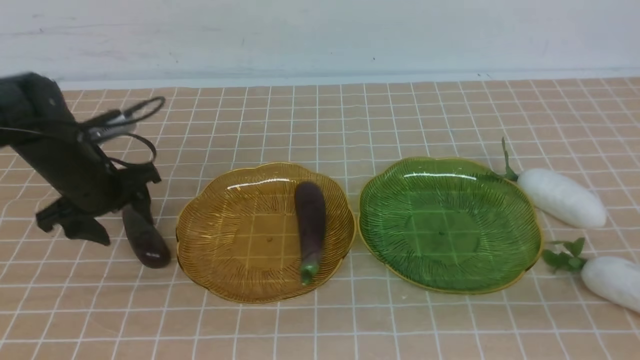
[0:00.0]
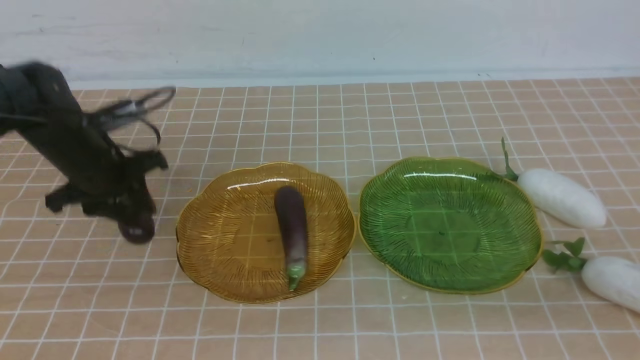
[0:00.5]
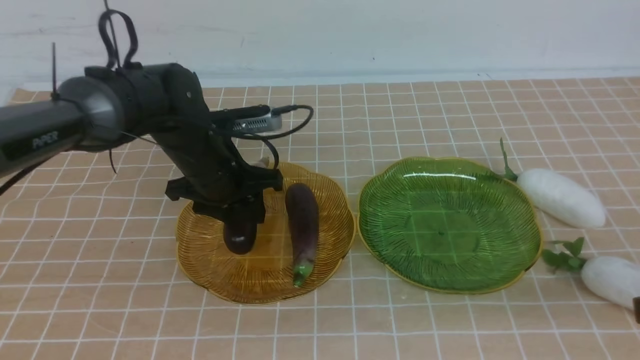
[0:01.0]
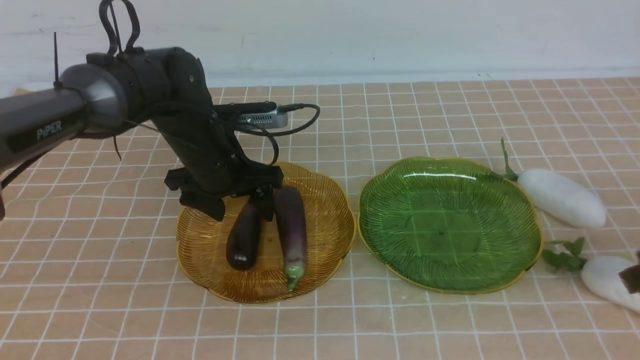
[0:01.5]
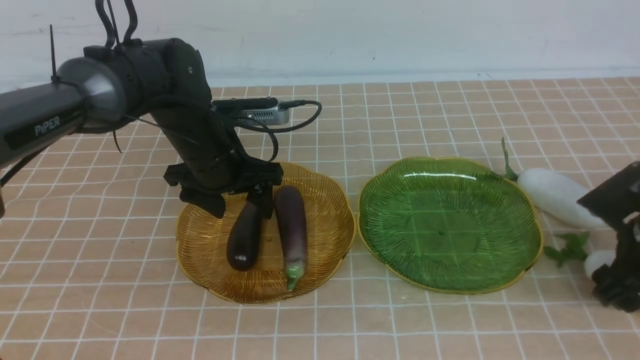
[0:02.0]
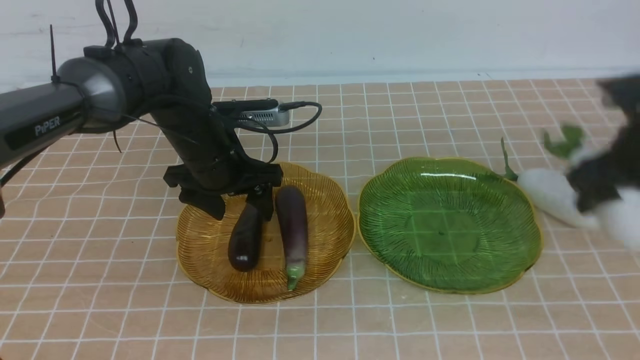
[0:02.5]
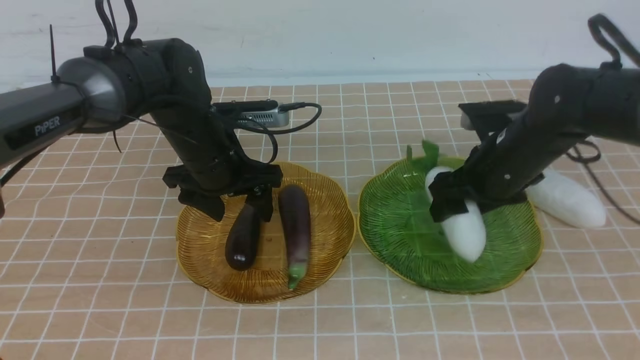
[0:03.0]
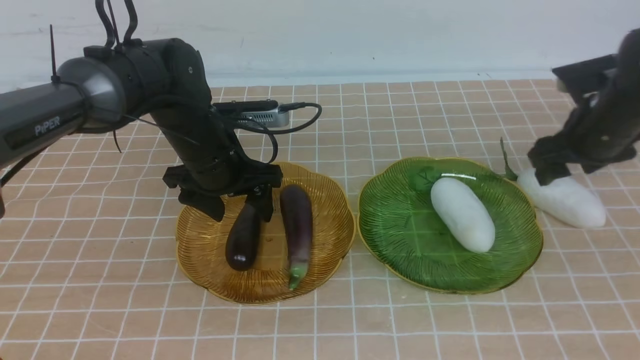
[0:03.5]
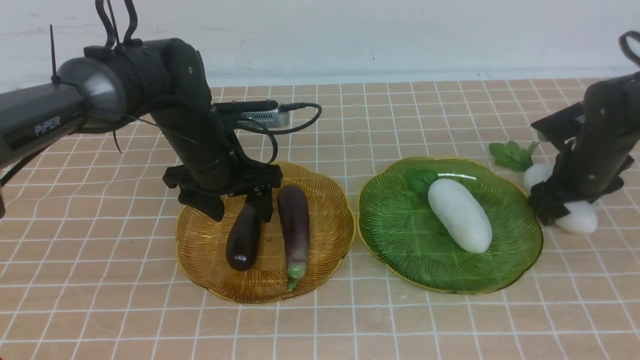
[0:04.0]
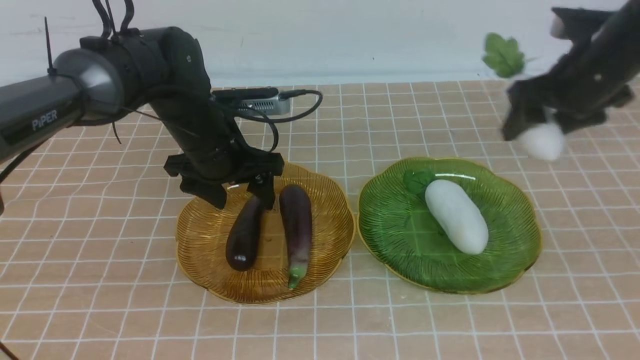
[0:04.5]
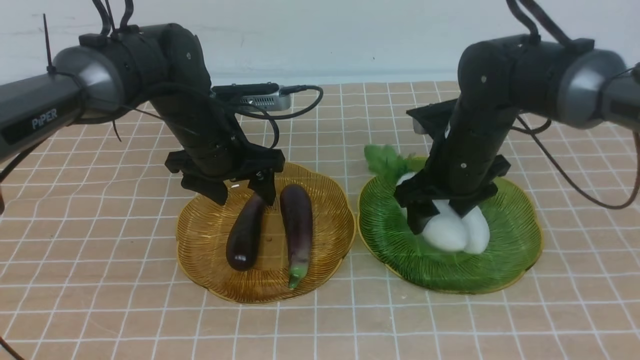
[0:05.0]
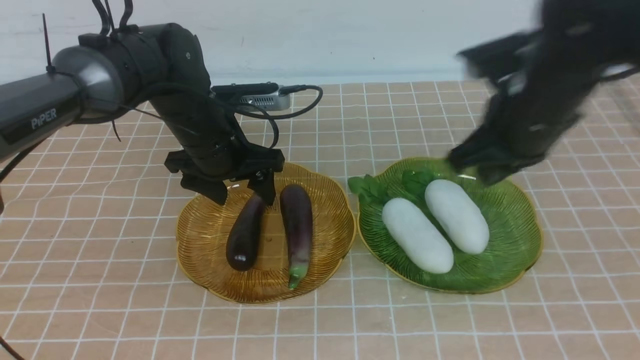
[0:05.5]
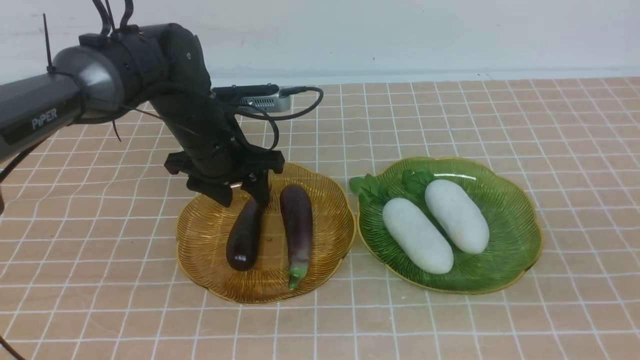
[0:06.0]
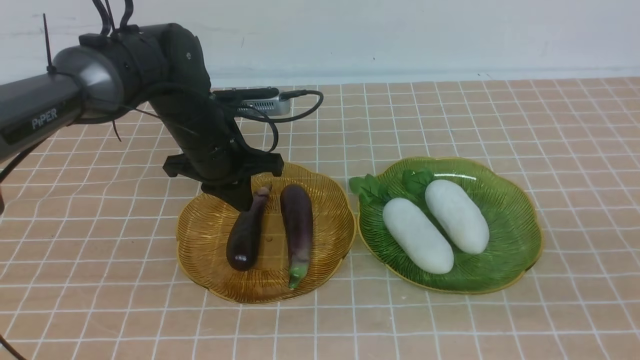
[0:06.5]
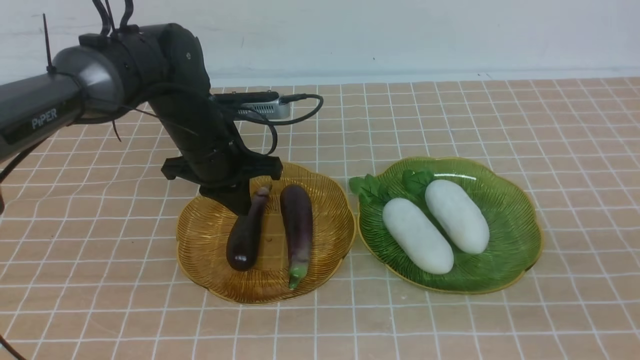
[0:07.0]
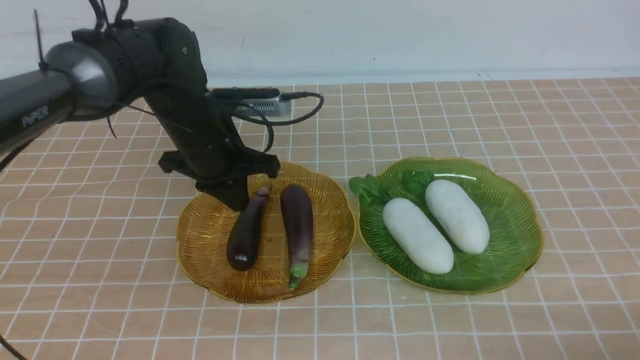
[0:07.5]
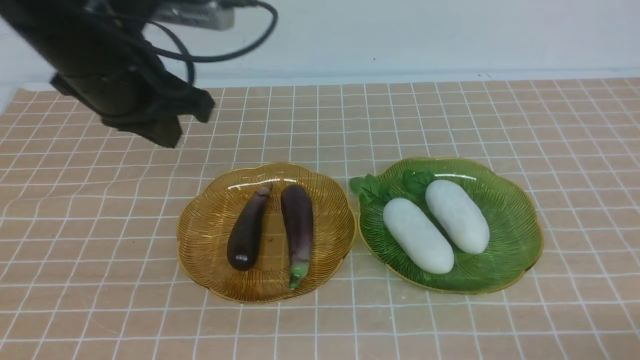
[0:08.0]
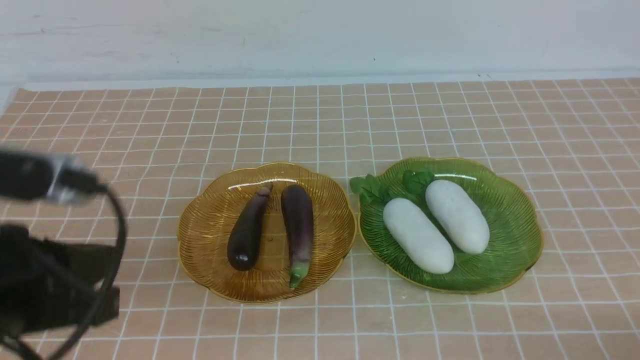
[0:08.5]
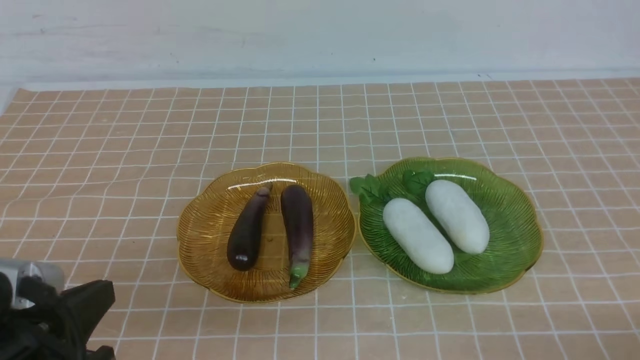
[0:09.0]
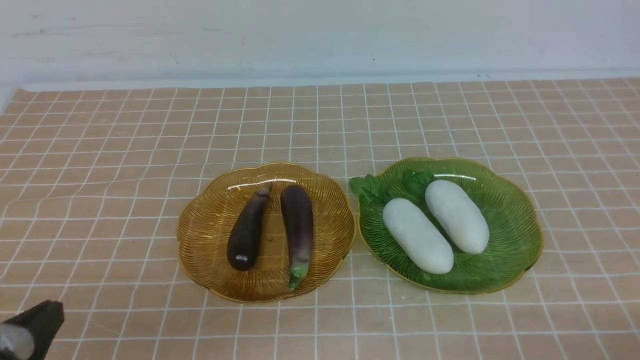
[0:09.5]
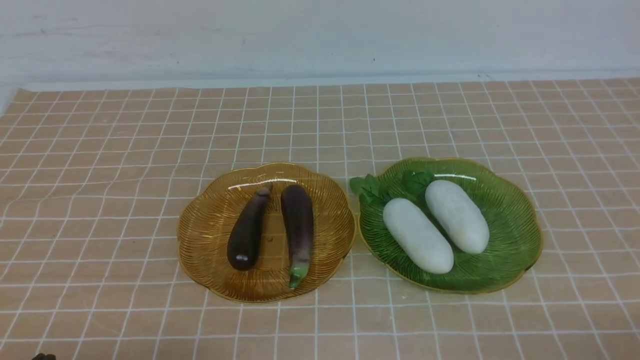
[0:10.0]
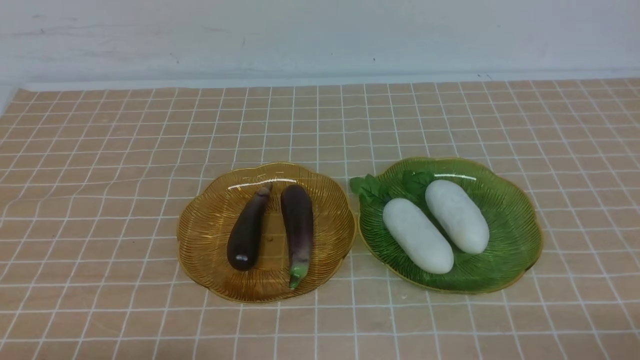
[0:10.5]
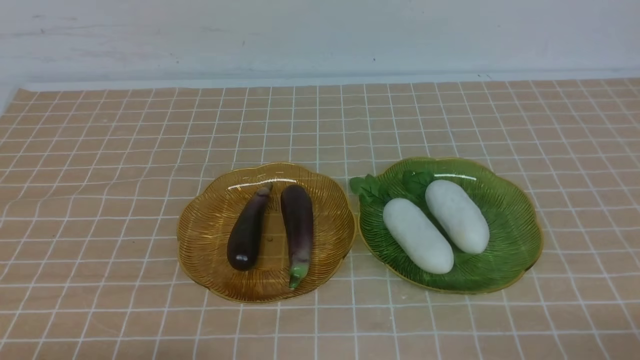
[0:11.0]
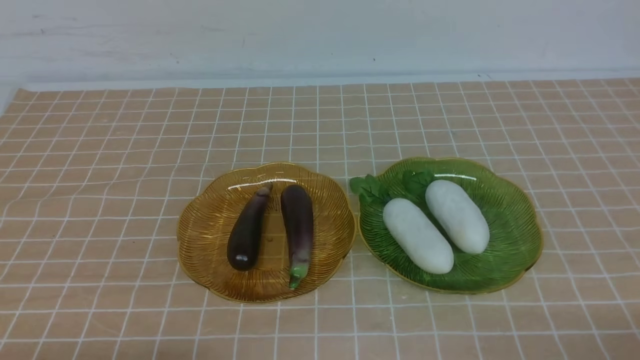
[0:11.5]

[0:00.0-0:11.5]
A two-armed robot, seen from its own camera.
Step, 0:02.0 to 0:03.0: use the right arm to grab a radish and put it into the right plate.
Step, 0:03.5 to 0:05.0: use the right arm to grab a radish and put it into the right plate.
0:00.0 to 0:02.0: The right gripper travels forward and downward by roughly 25 cm, and opens its fingers; the left gripper travels to the right by approximately 15 cm, and opens.
0:02.0 to 0:04.0: The right gripper goes roughly 15 cm forward and upward.
0:04.0 to 0:06.0: The right gripper heads backward, covering roughly 30 cm, and closes its fingers.
0:06.0 to 0:07.5: The left gripper closes its fingers; the right gripper is displaced downward and backward by some 15 cm.
0:07.5 to 0:09.5: The left gripper heads backward, covering roughly 30 cm.
0:09.5 to 0:11.5: The left gripper travels downward by some 5 cm.
